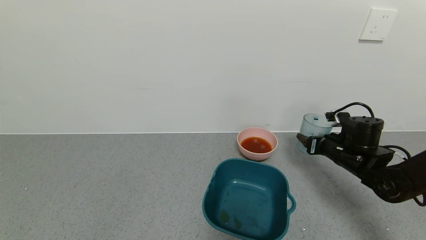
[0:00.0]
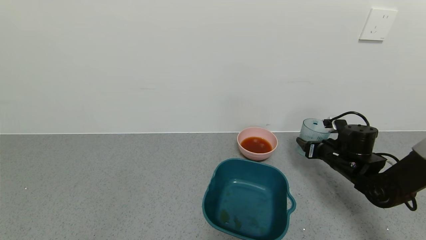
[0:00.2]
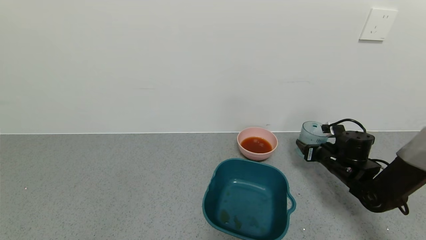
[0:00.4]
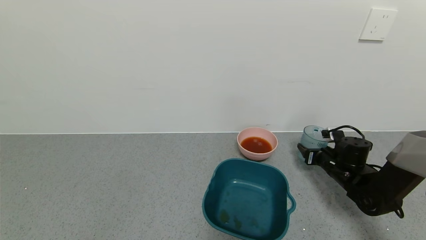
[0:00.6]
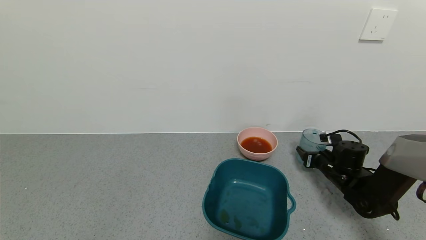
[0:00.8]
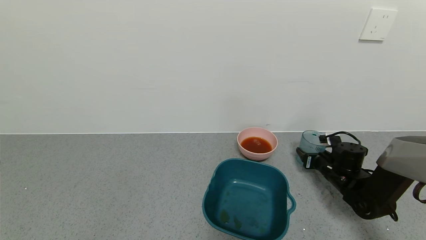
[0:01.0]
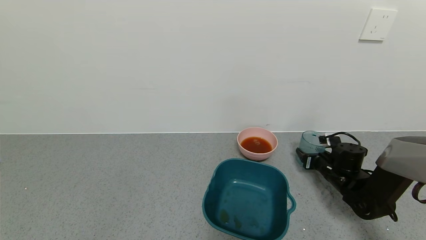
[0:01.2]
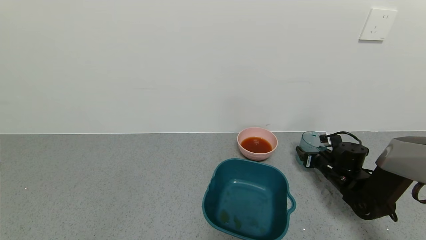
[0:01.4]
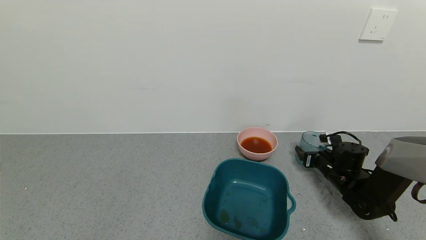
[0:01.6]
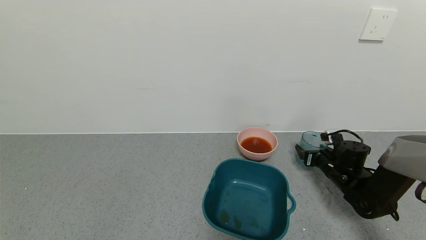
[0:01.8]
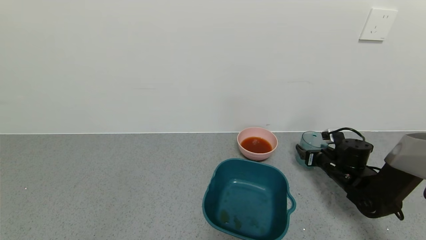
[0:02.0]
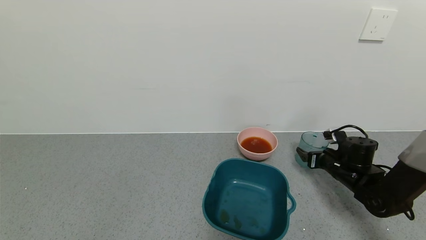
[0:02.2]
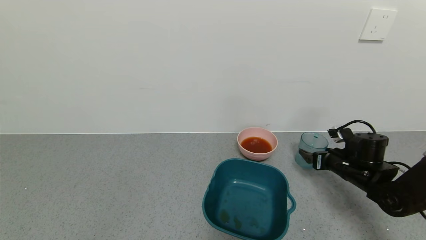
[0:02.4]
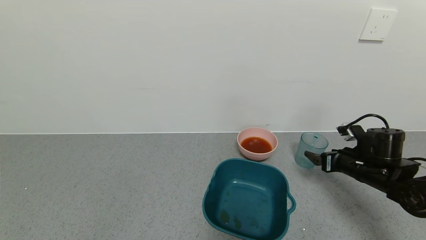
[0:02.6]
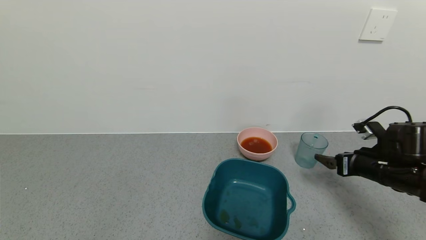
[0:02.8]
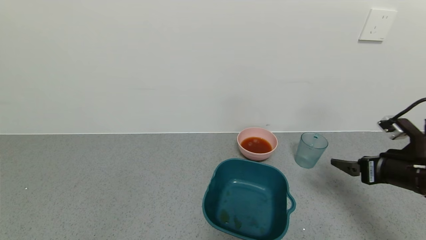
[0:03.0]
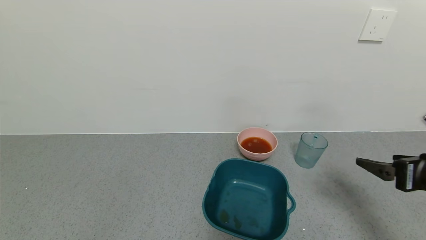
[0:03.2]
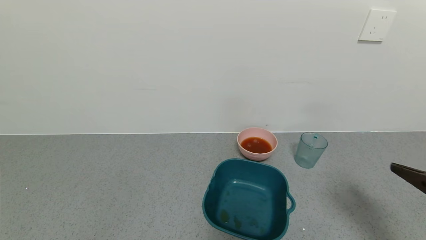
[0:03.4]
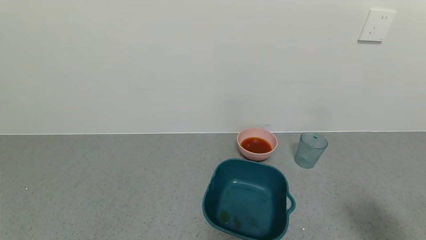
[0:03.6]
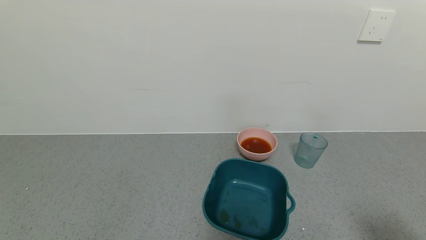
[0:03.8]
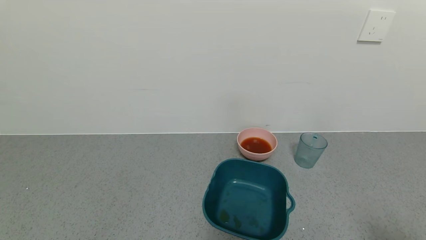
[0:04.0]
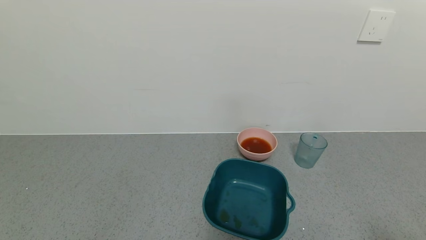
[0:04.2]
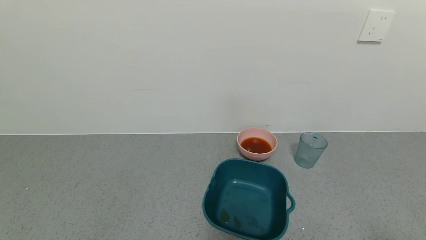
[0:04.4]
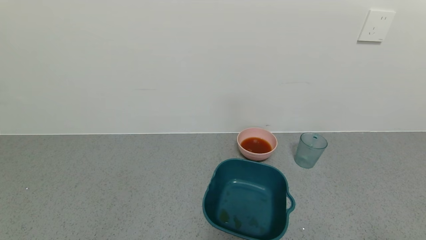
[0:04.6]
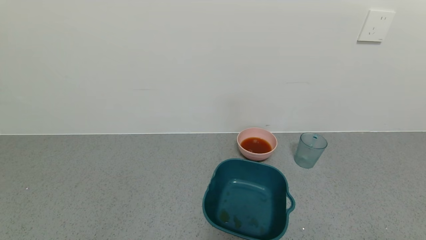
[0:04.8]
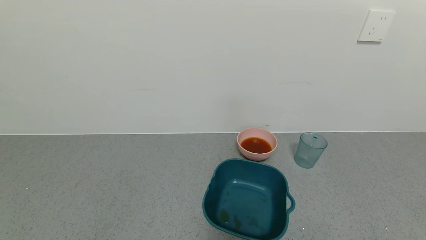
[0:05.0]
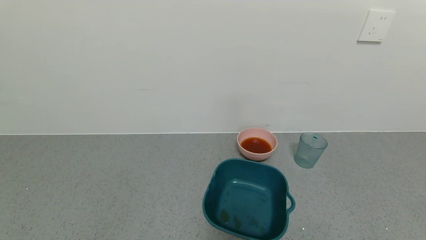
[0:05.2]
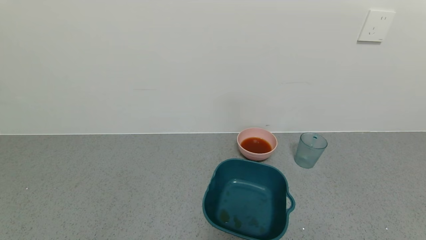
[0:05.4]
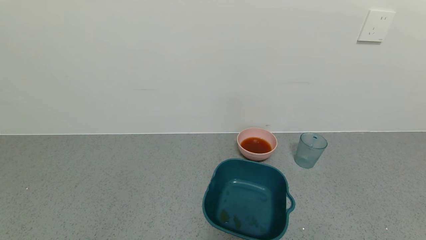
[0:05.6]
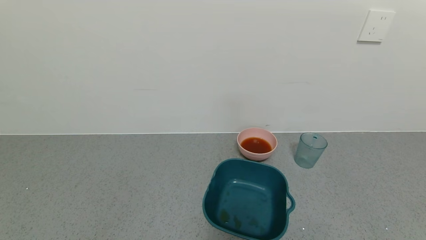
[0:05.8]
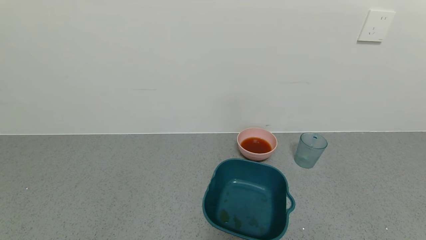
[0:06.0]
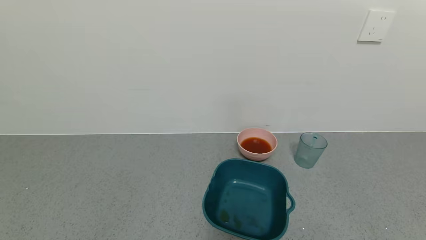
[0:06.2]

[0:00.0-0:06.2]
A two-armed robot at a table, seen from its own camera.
Task of the whole recording: use a gripper to pick up the cup and pour the liquid into a bowl or tray.
0:00.0 to 0:01.6: The right gripper moves downward, roughly 10 cm, and opens.
0:01.6 to 0:03.2: The right gripper travels backward and upward by some 30 cm.
0:03.2 to 0:04.6: The right gripper heads backward, covering about 20 cm.

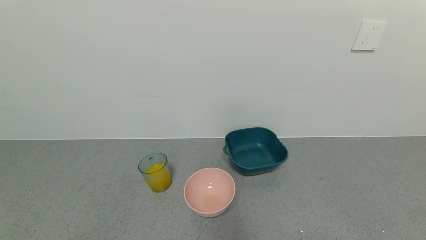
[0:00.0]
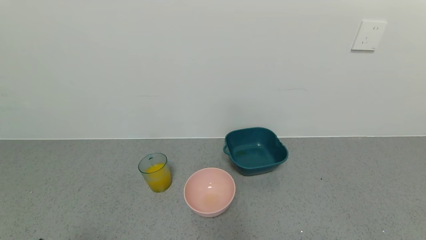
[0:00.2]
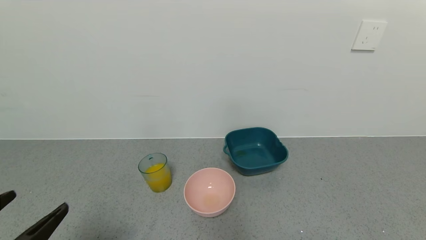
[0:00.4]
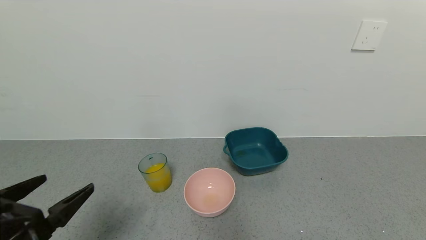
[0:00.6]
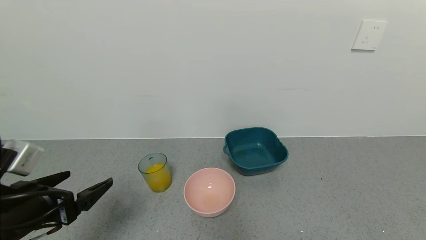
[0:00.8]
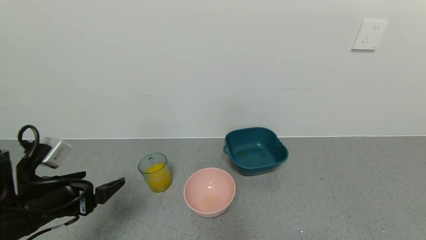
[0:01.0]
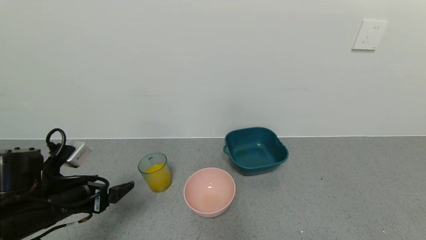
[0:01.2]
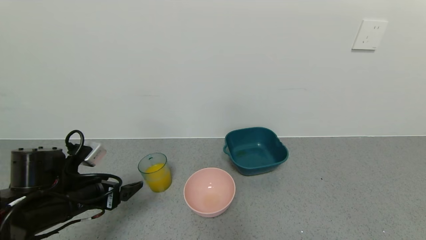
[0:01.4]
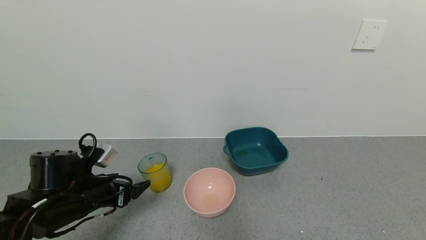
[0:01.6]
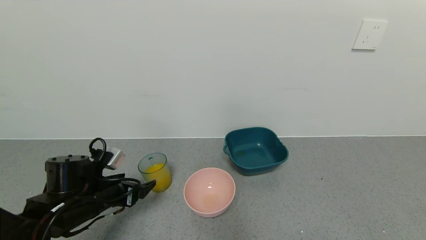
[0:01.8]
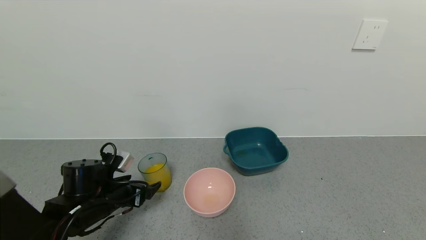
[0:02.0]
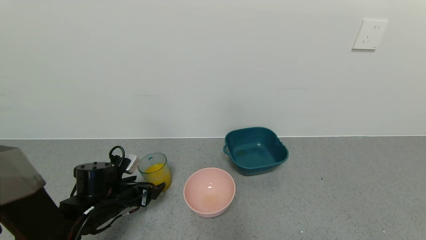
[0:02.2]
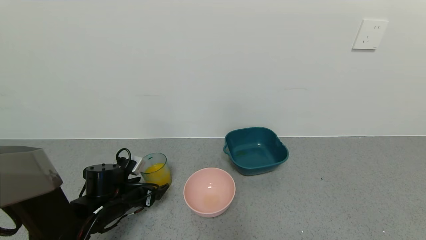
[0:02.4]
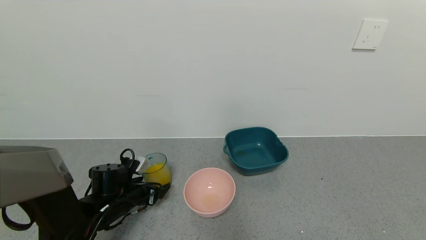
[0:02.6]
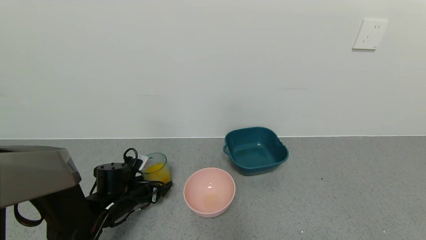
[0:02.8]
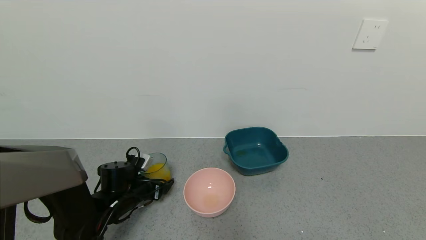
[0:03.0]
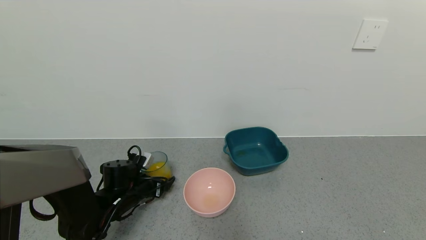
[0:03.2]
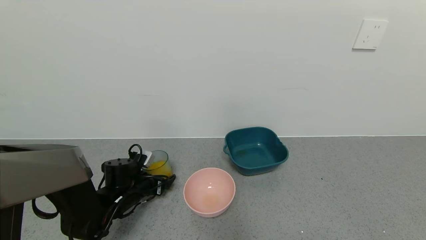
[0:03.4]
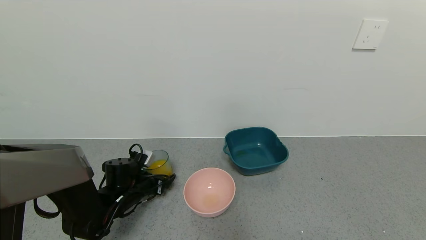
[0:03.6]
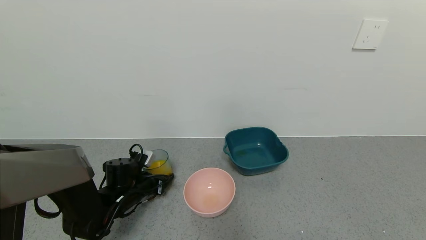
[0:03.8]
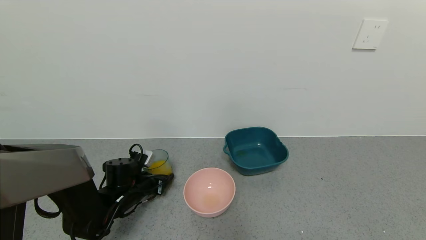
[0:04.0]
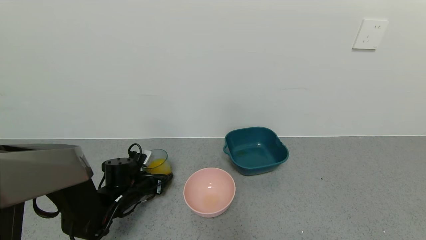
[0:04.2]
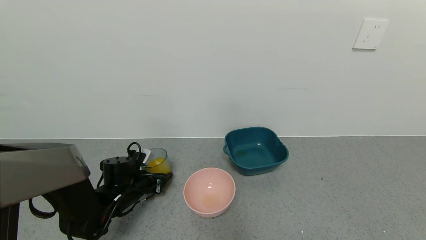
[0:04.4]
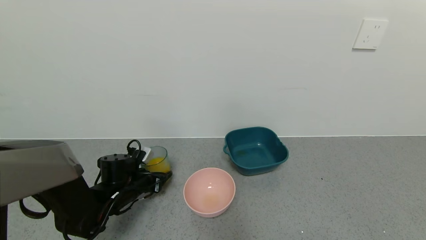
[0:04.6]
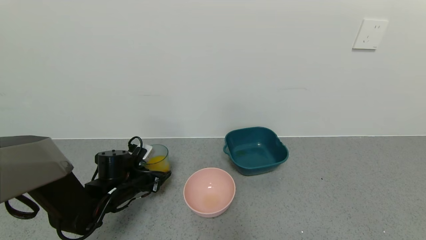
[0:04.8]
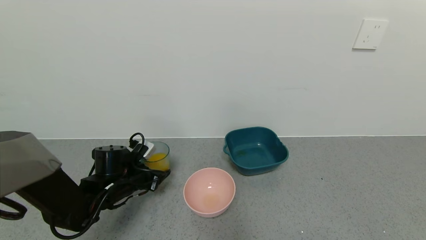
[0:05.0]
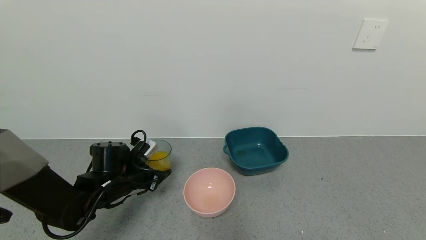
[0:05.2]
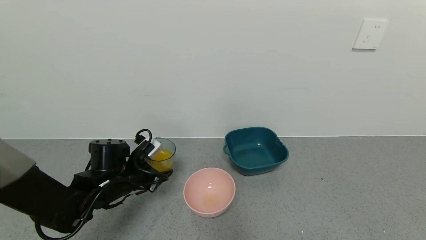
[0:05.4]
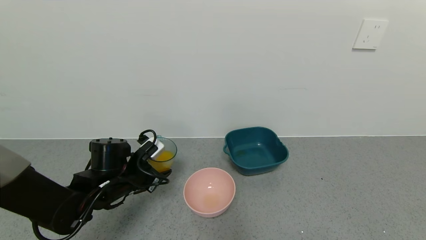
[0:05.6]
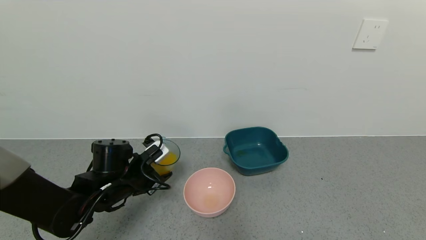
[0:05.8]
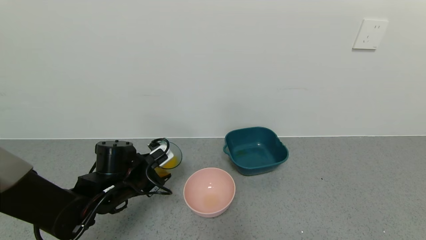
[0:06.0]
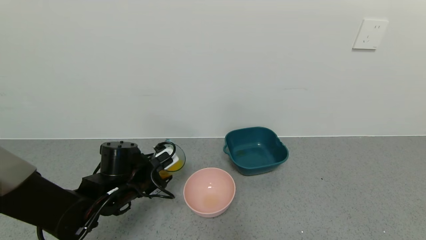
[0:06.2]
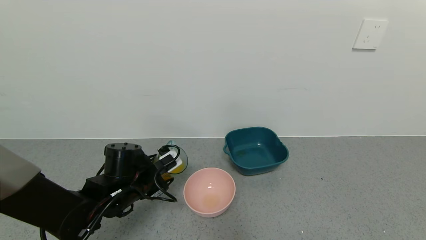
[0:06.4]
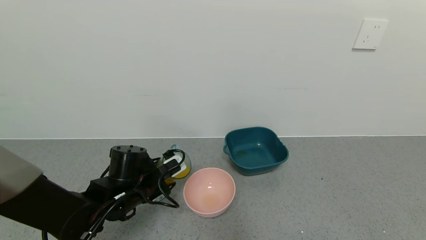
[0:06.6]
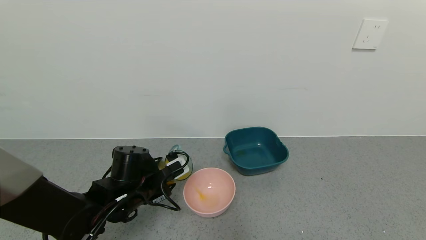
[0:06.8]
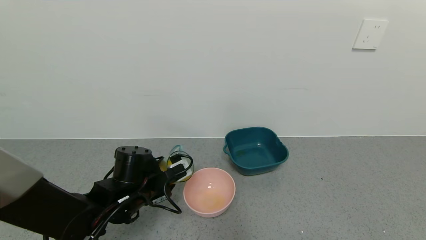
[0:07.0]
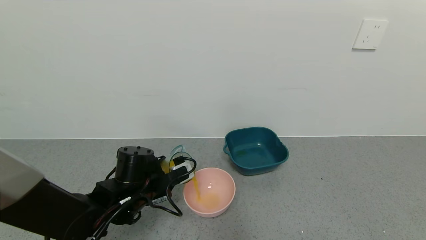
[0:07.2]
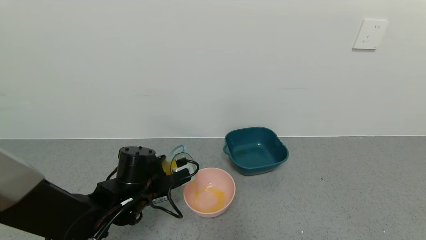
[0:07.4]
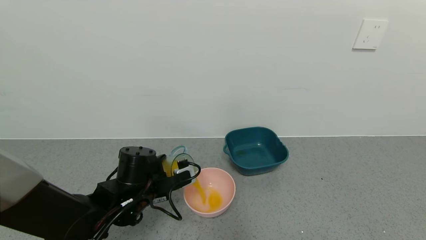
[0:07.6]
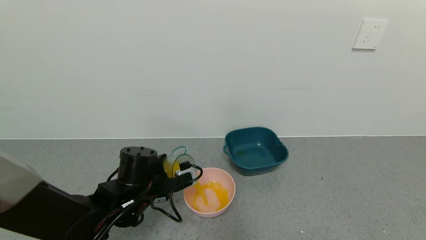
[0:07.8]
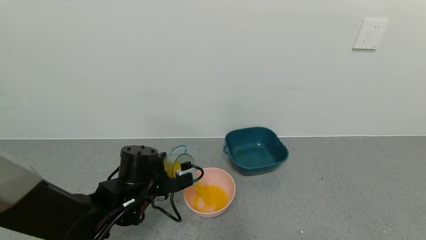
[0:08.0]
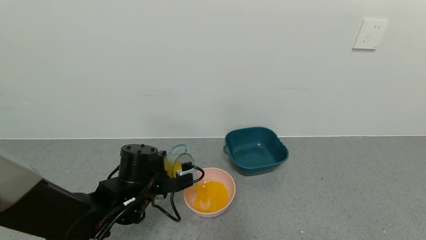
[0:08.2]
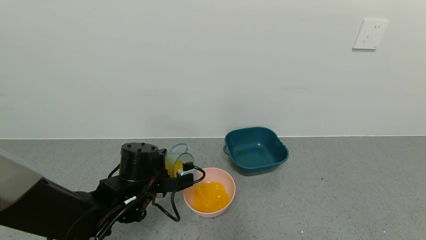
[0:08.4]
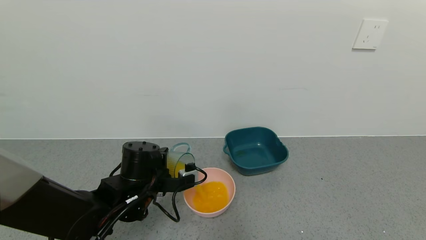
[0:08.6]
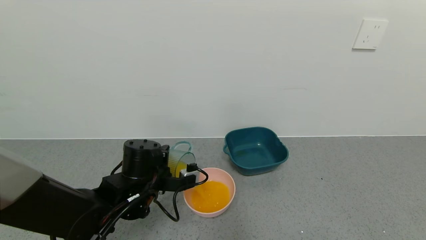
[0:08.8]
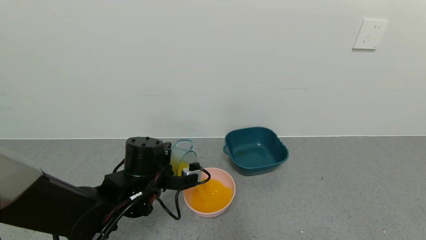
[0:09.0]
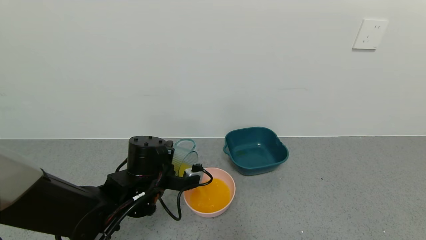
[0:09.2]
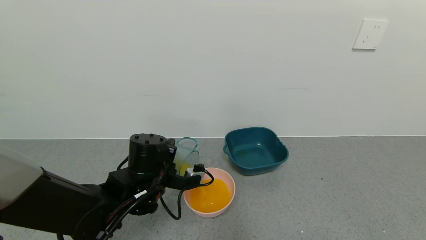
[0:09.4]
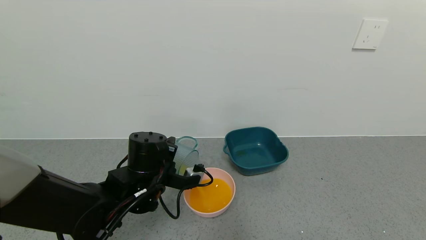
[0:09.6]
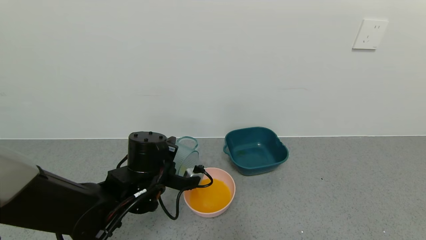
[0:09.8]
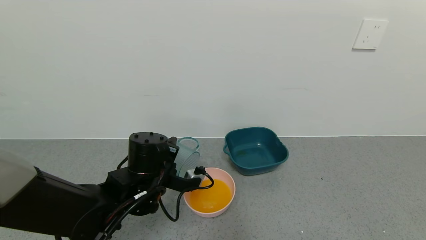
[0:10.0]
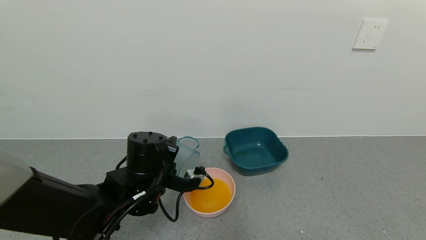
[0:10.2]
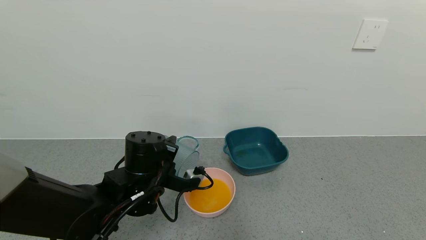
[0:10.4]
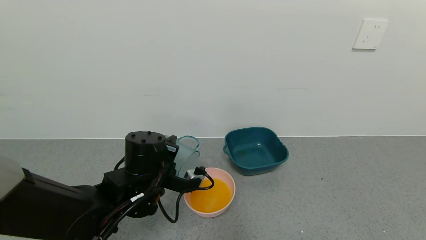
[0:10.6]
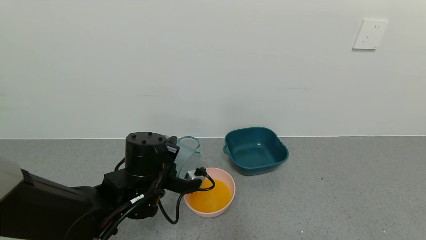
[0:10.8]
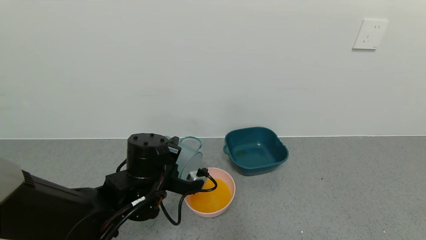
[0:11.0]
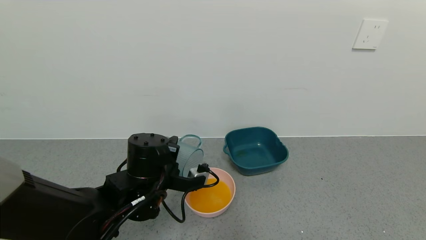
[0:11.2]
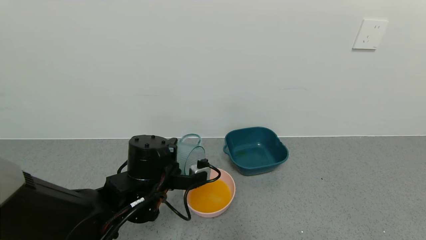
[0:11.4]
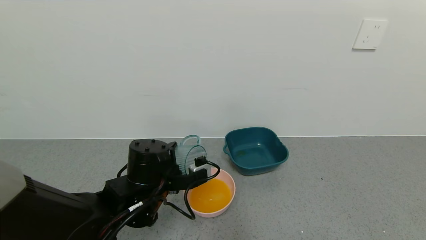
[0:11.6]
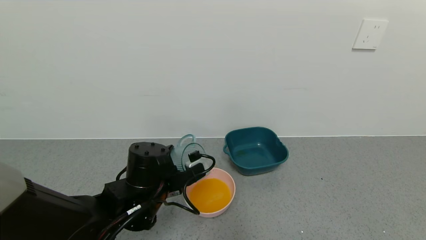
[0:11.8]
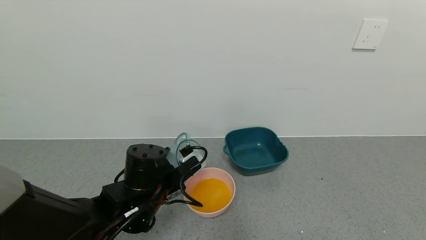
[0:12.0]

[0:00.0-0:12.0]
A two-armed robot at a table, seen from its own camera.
Task of the whole recording: use a gripper to pick up the cup and pour the liquid into a bowl or tray.
Step, 0:00.0 to 0:03.8: Grasp the glass of orange juice with the left gripper.
Step, 0:04.0 to 0:10.6: Pour the orange juice into the pink bowl with the left gripper.
0:00.0 to 0:01.6: The left gripper is displaced forward by approximately 25 cm.
0:01.6 to 0:03.0: The left gripper travels downward and forward by some 10 cm.
0:03.0 to 0:04.4: The left gripper closes.
0:04.4 to 0:06.0: The left gripper goes about 5 cm upward.
0:09.0 to 0:10.4: The grippers stay close to where they were, moving slightly.
